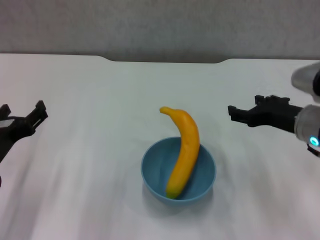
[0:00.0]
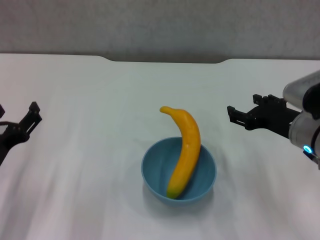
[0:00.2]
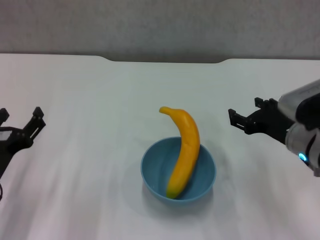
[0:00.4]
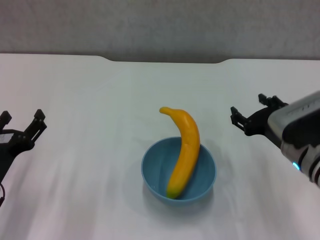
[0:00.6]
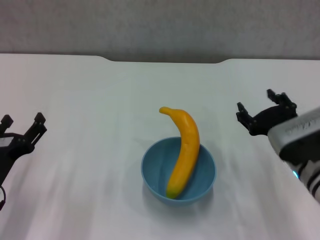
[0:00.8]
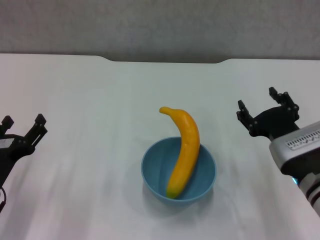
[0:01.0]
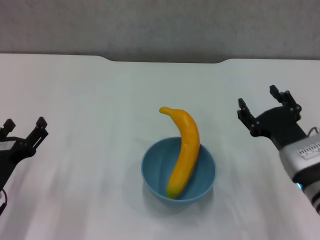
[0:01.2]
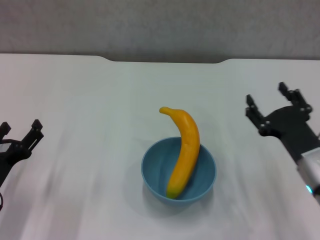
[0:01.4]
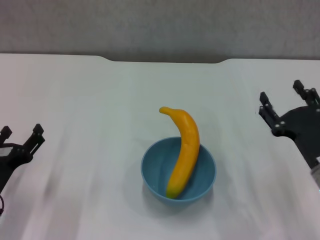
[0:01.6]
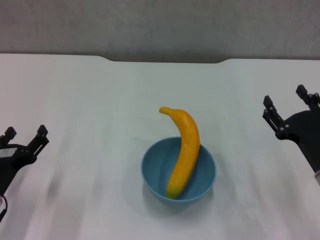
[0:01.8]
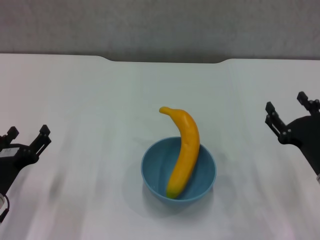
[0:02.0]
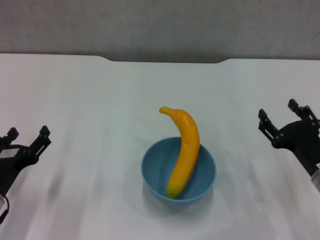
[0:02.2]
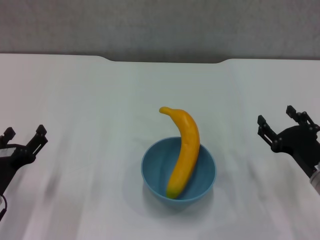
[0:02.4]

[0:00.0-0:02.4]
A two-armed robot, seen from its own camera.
0:00.0 to 0:01.2: The right gripper heads downward and backward, covering about 10 cm; the left gripper goes some 5 cm downward.
0:01.2 to 0:02.4: The right gripper heads to the right, covering approximately 5 cm.

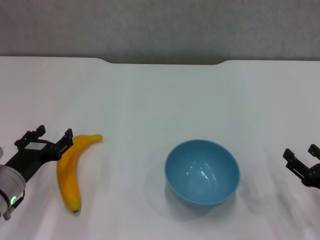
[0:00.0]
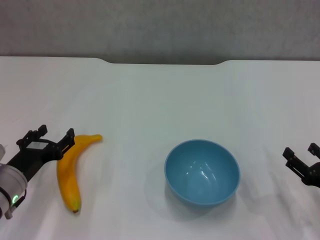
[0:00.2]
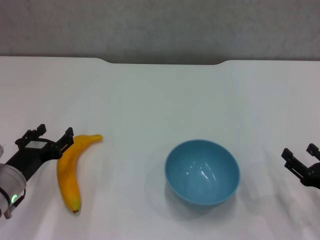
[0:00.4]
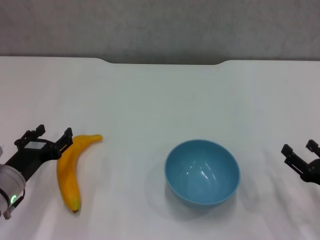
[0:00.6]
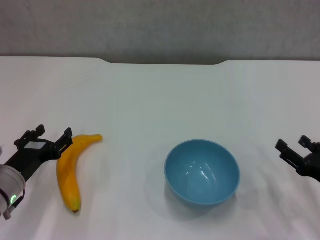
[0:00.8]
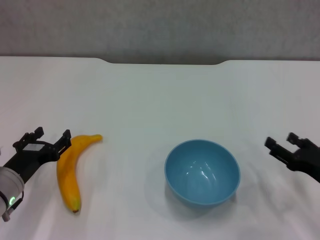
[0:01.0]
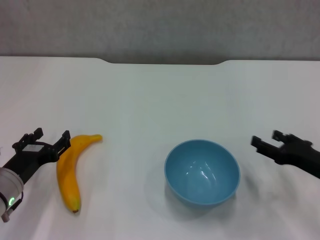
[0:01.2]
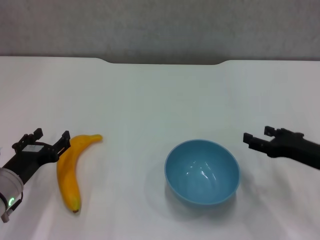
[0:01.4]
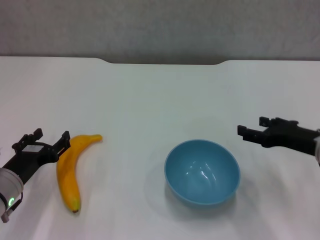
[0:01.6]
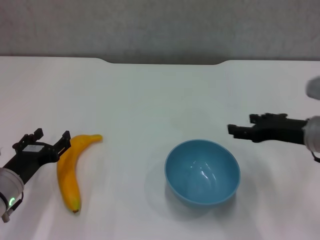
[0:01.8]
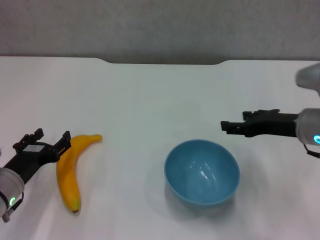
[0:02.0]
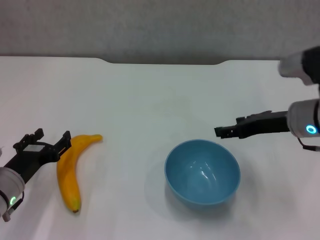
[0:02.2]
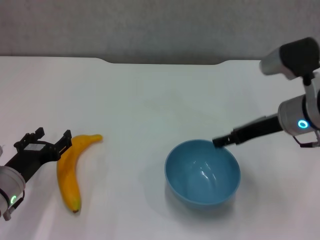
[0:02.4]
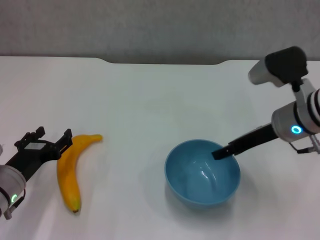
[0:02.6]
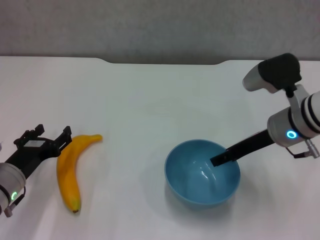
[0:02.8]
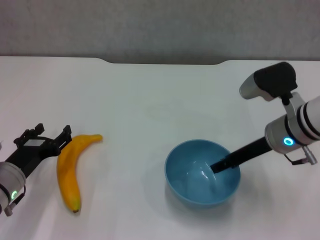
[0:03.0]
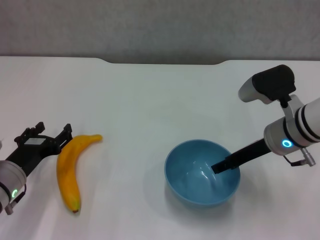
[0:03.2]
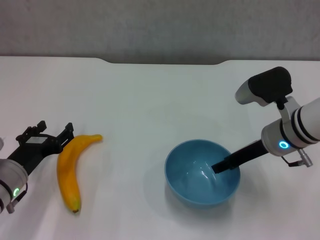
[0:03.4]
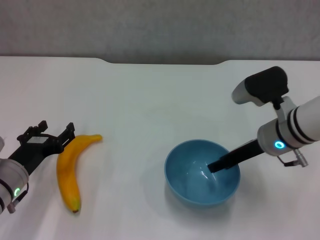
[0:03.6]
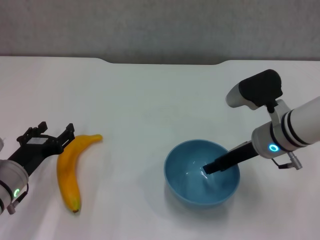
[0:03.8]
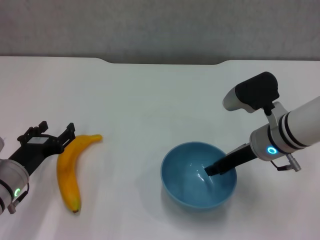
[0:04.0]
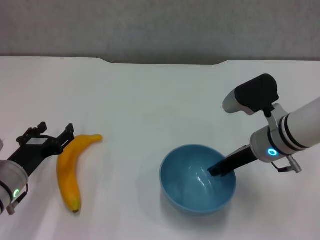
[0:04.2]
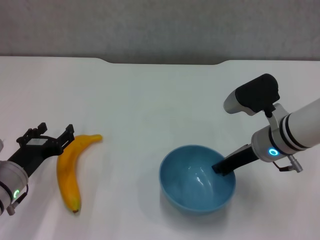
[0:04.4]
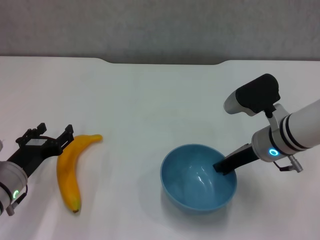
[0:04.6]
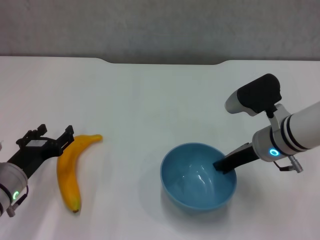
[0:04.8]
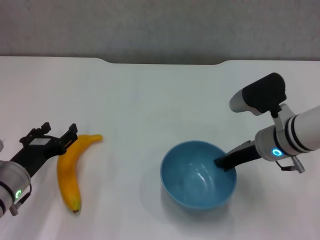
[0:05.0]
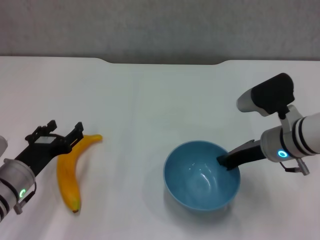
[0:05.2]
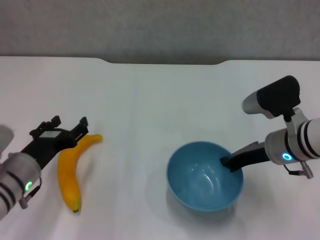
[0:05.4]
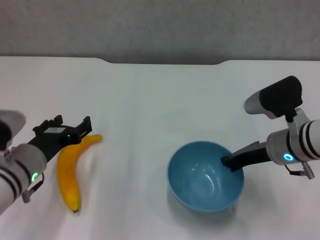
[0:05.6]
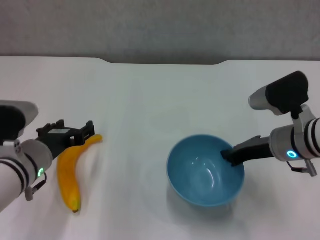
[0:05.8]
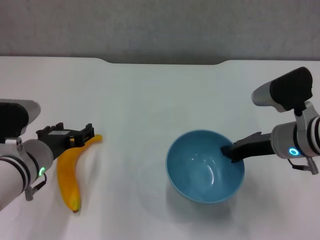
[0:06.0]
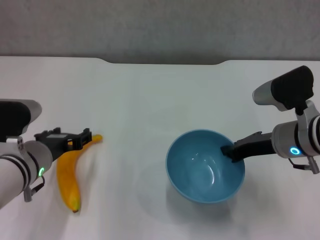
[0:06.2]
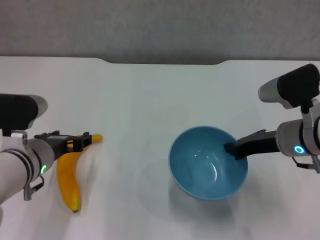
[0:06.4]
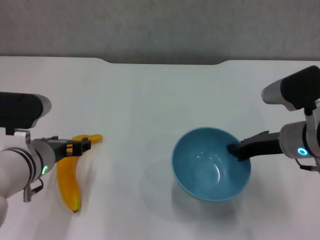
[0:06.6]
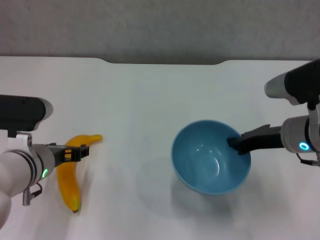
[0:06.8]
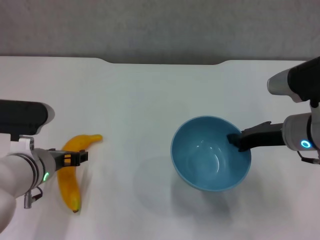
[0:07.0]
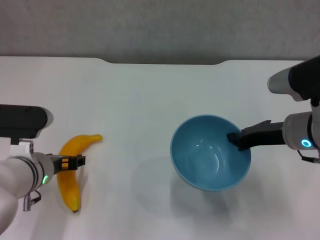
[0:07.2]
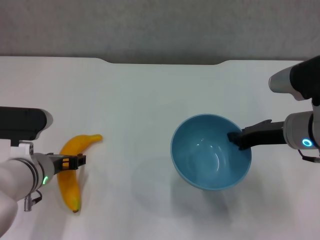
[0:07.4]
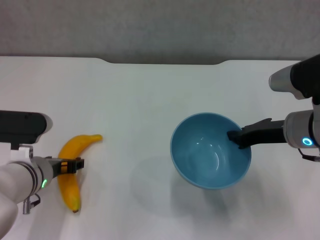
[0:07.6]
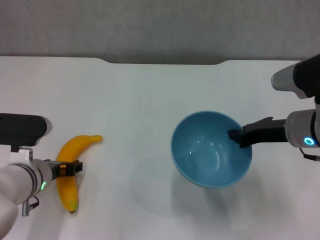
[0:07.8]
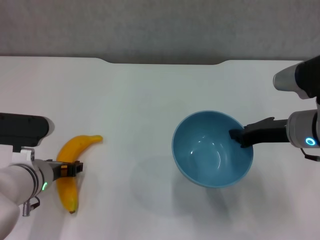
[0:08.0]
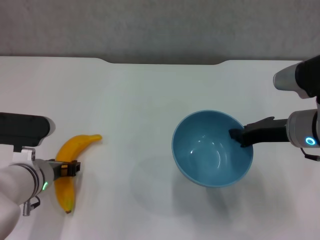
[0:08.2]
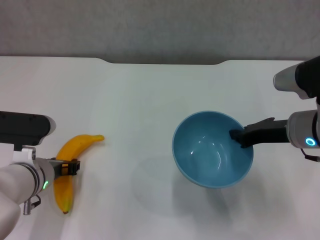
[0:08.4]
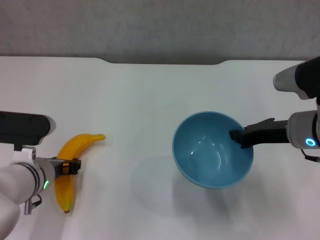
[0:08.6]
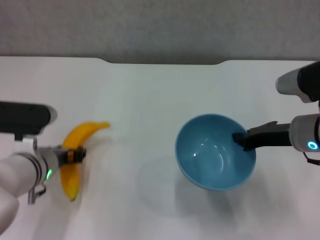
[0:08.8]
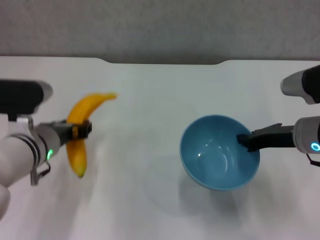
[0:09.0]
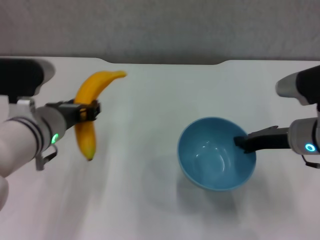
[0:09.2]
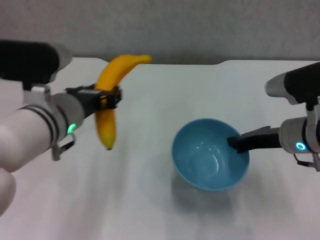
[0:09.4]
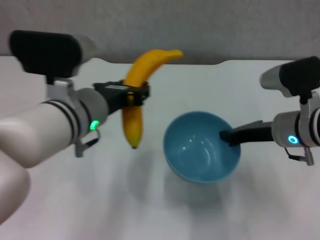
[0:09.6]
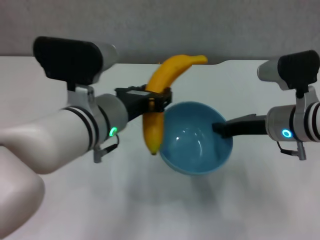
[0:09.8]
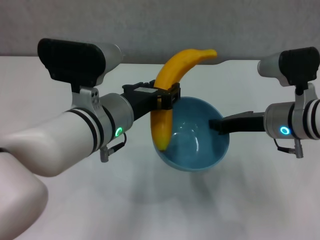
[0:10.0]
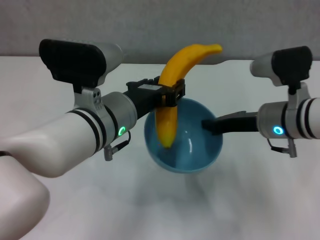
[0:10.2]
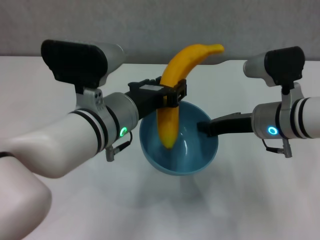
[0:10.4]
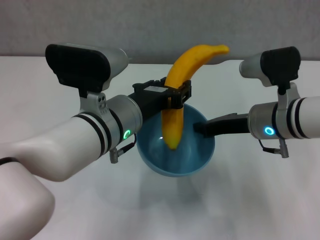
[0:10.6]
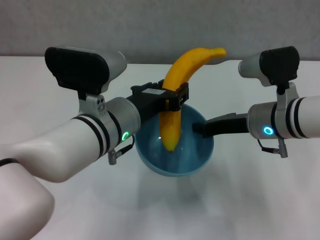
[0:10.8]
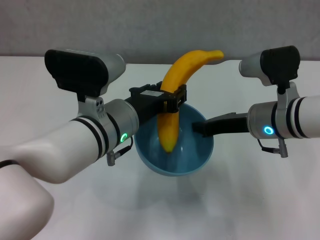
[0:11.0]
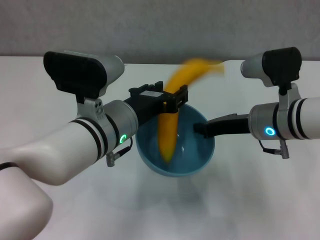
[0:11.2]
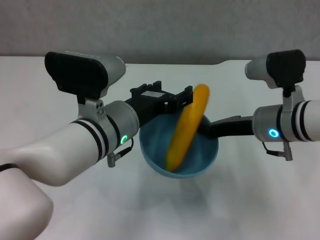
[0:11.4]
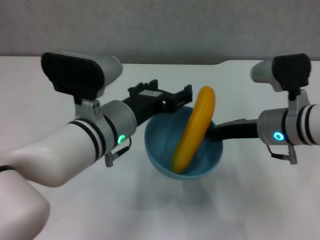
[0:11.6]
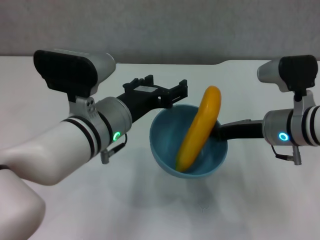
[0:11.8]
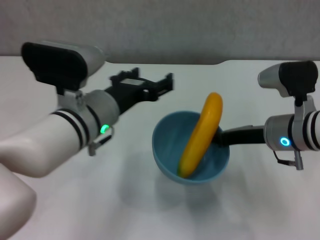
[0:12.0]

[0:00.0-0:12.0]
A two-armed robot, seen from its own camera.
Step, 0:00.0 to 0:04.6: Grasp the blue bowl with right gripper.
Step, 0:04.8 to 0:07.0: Lift the blue bowl with right gripper.
Step, 0:07.2 to 0:08.2: Grasp the banana with left gripper.
Step, 0:08.4 to 0:11.4: Place the banana in the blue bowl with left gripper.
0:00.0 to 0:01.6: The right gripper shifts about 10 cm forward and upward.
0:01.6 to 0:03.0: The right gripper moves to the left and forward, some 10 cm.
0:03.0 to 0:04.4: The right gripper closes up.
0:04.4 to 0:06.0: The left gripper is displaced upward and to the right by about 10 cm.
0:06.0 to 0:07.6: The grippers stay close to where they were, moving slightly.
0:07.6 to 0:09.0: The left gripper shifts by about 5 cm, and closes its fingers.
0:09.0 to 0:10.4: The left gripper shifts some 10 cm to the right and upward; the right gripper shifts some 5 cm to the left.
0:10.4 to 0:12.0: The left gripper opens.

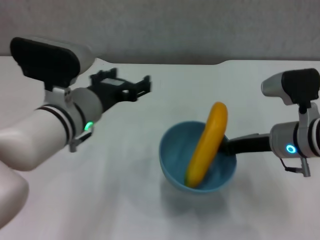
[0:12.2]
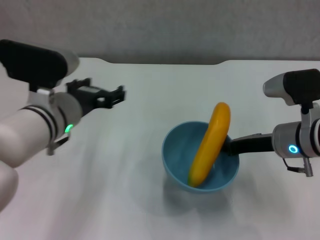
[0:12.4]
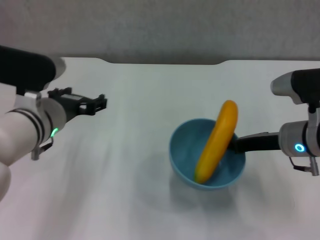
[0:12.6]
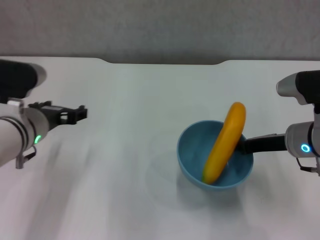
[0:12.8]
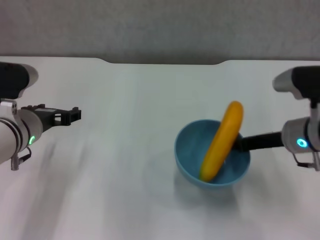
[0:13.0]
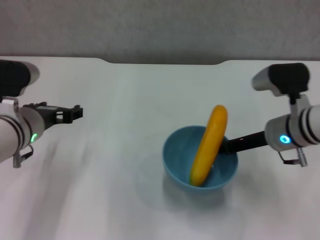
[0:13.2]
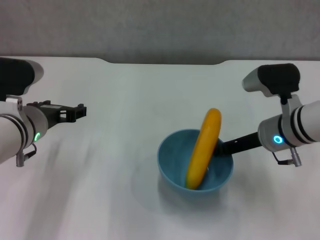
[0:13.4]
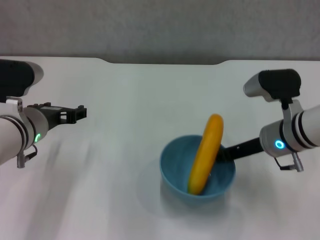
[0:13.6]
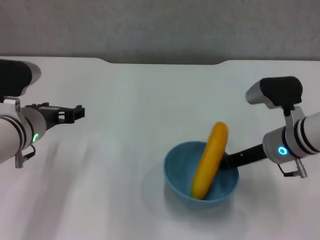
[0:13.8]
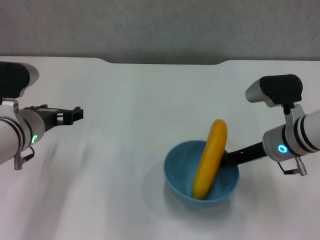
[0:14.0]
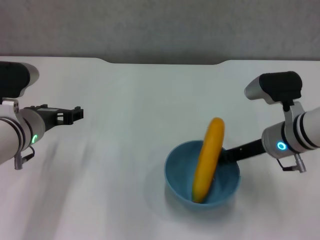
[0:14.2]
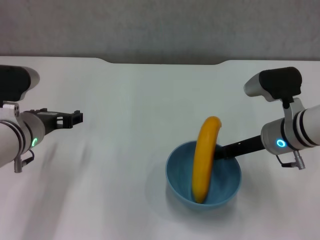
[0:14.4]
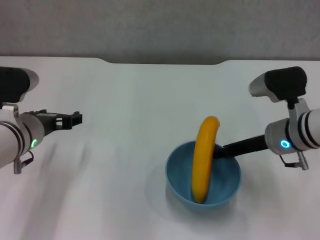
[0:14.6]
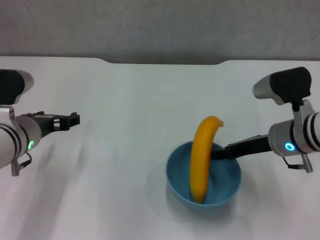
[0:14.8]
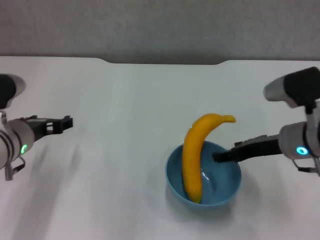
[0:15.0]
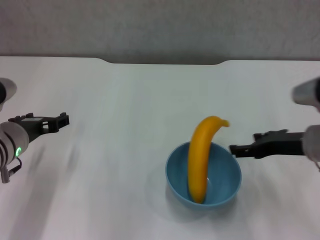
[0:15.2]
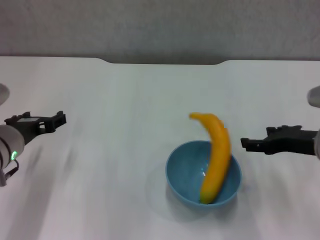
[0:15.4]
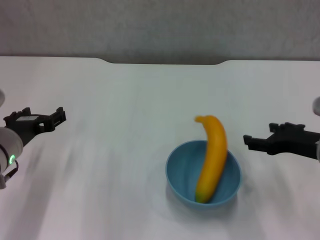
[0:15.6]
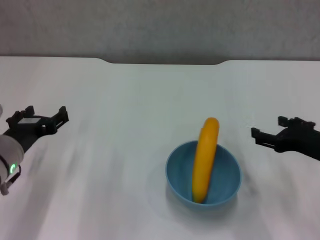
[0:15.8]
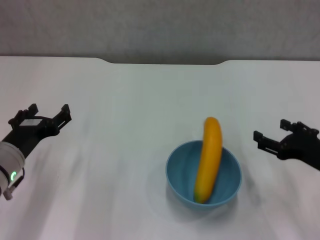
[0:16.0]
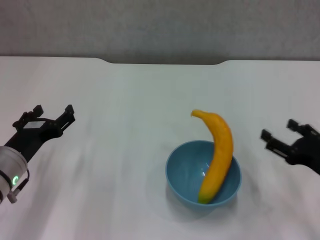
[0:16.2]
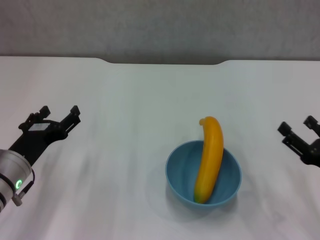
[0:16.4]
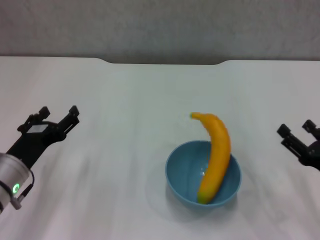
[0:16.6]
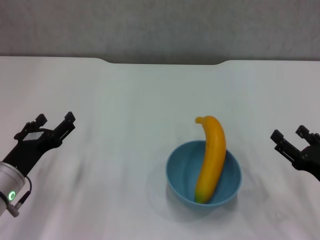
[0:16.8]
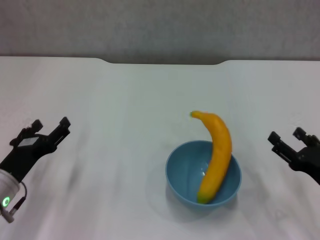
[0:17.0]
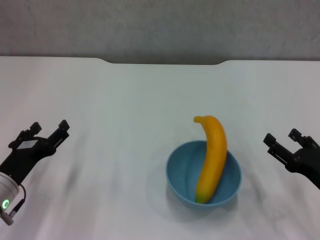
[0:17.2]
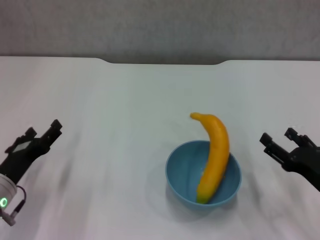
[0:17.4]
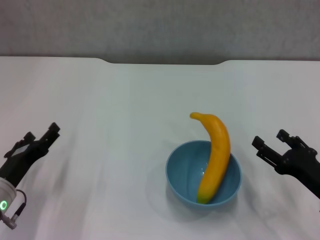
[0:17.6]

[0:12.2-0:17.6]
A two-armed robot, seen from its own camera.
Step, 0:12.2 to 0:14.8: Place the bowl on the table with right gripper.
0:12.2 to 0:13.6: The left gripper shifts approximately 10 cm to the left.
0:13.6 to 0:15.0: The right gripper opens its fingers.
0:15.0 to 0:16.2: The right gripper travels backward and to the right by some 10 cm. Meanwhile the left gripper shifts by some 5 cm.
0:16.2 to 0:17.6: The left gripper moves roughly 5 cm.
